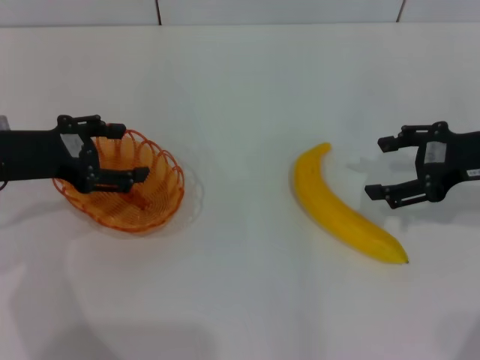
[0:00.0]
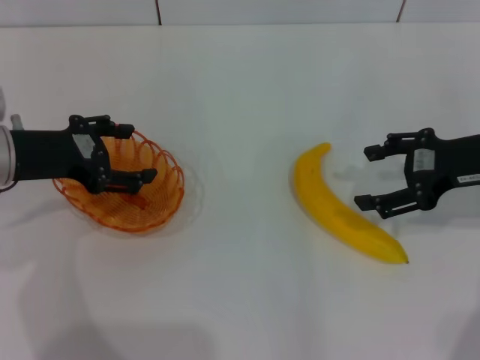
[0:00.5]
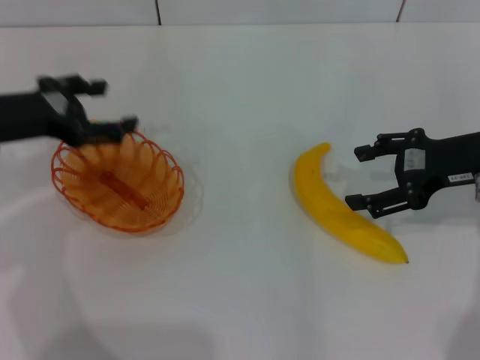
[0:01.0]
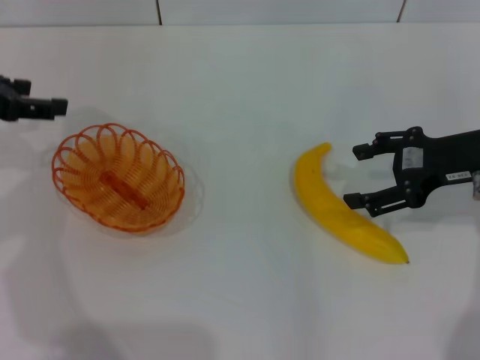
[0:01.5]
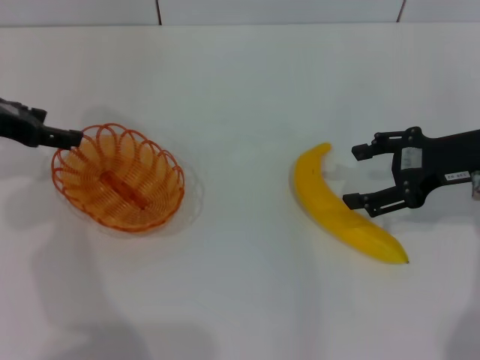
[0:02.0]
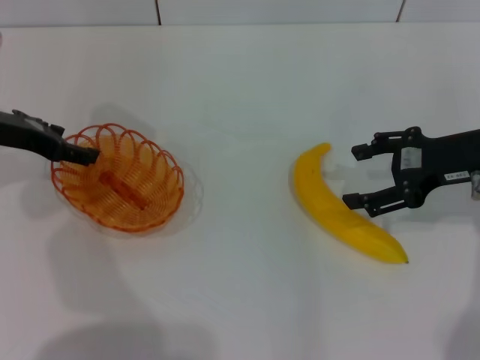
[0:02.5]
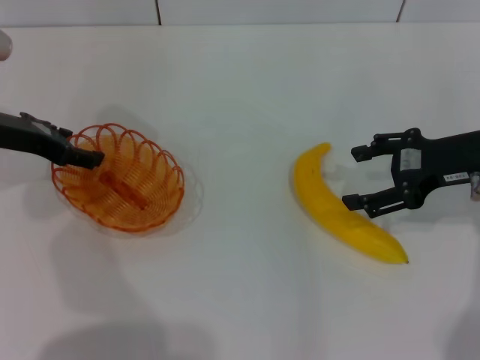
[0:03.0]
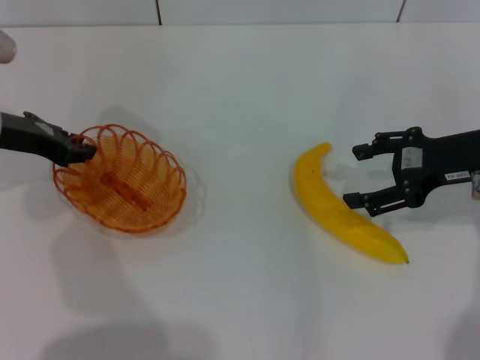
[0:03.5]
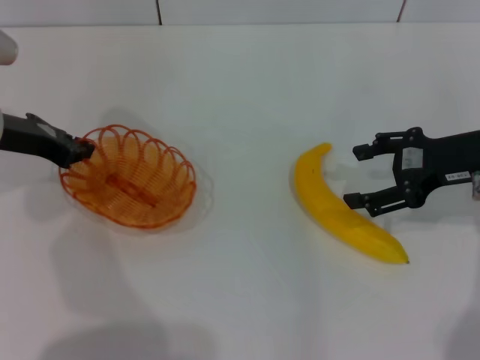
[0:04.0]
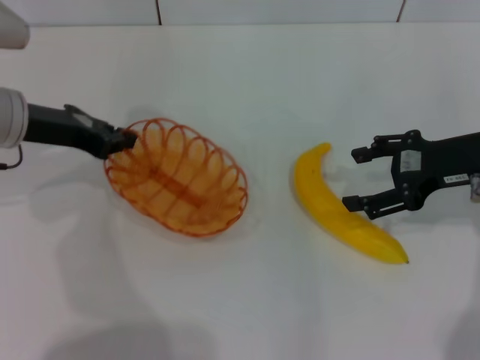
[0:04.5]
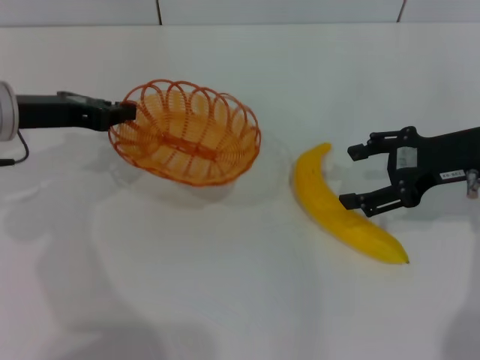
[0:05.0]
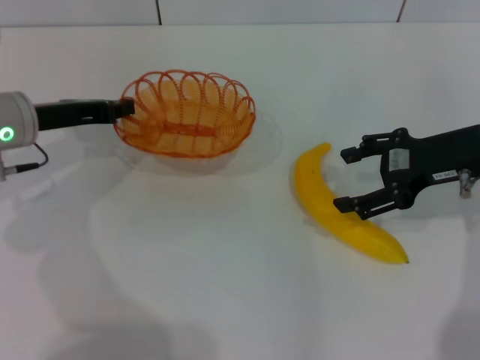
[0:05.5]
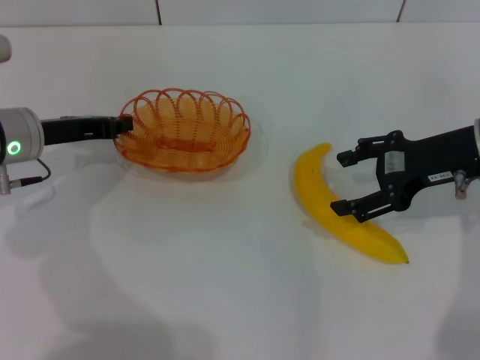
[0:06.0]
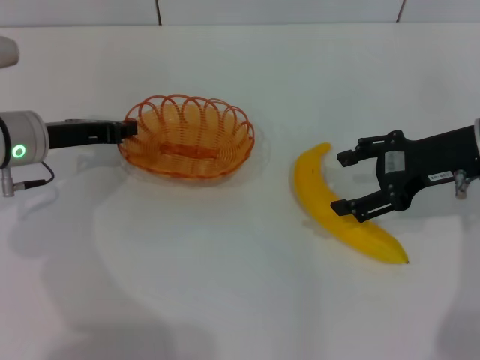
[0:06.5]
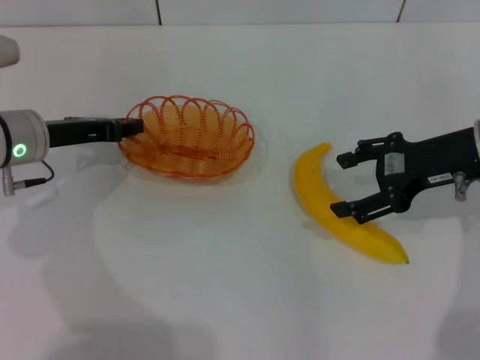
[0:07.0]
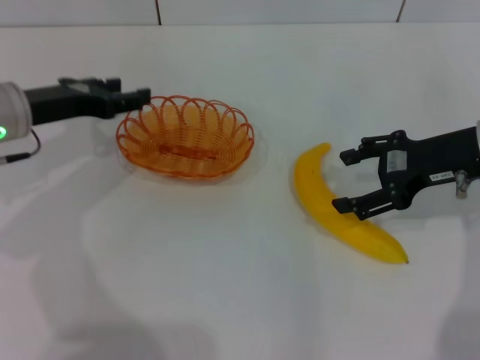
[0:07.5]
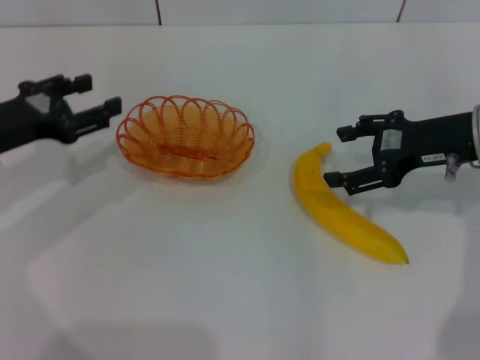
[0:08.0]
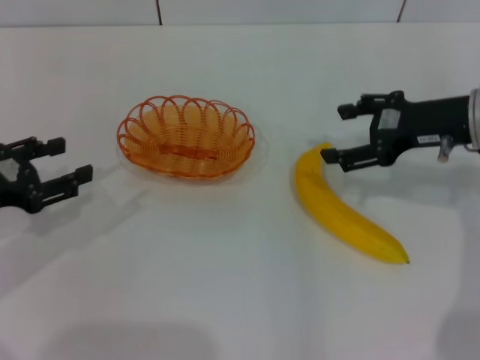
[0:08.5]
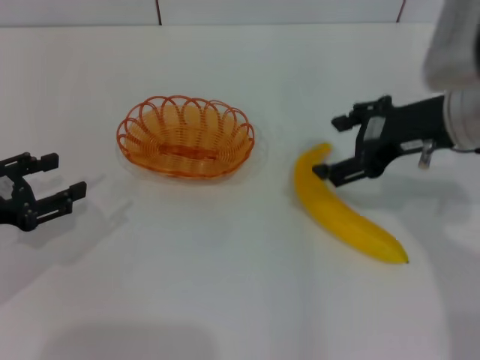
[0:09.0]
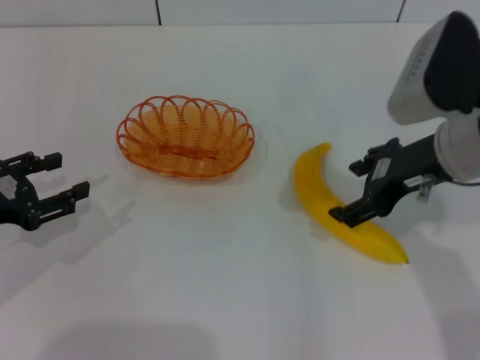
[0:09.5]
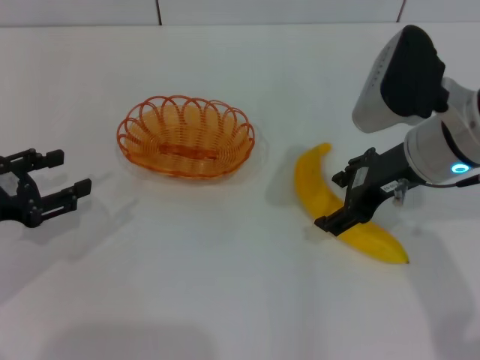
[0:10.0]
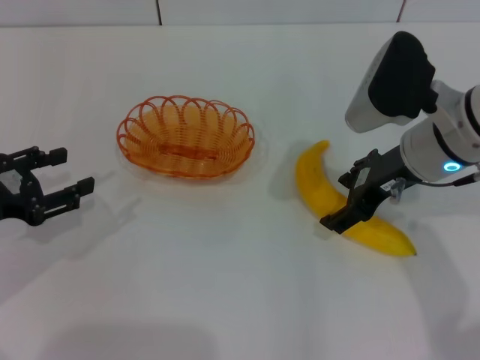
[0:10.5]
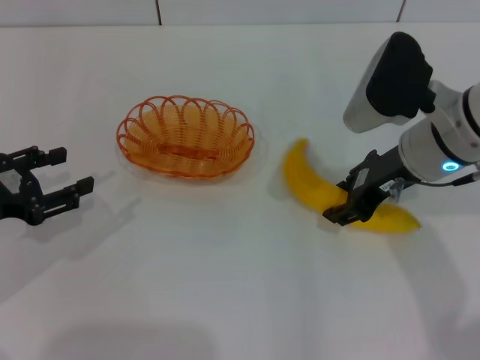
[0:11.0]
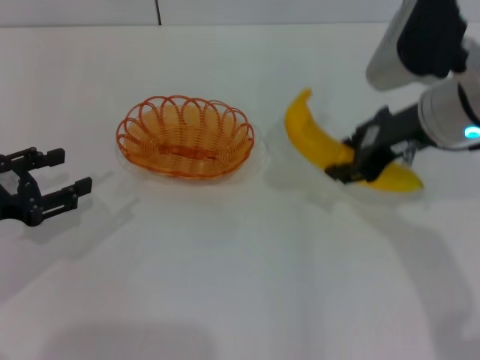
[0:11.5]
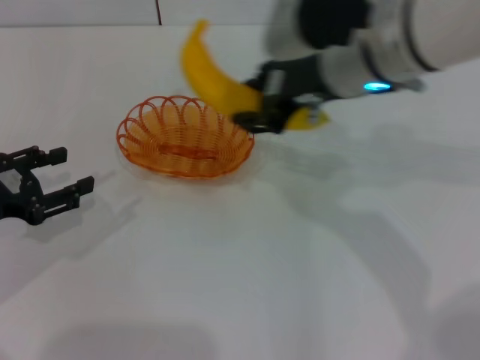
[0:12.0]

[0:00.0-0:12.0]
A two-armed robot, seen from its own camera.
Step, 0:00.0 to 0:04.0: Pick up the basket with the left gripper.
Step, 0:04.5 to 0:07.5: Place the basket in the center of view with the left gripper.
Step, 0:08.0 to 0:11.5: Pick up the banana with the right gripper.
0:00.0 to 0:02.0: The left gripper moves roughly 5 cm.
0:02.0 to 0:04.0: The left gripper closes.
0:06.0 to 0:08.0: The left gripper shifts by roughly 5 cm, and opens its fingers.
0:08.0 to 0:10.0: The right gripper shifts roughly 10 cm to the left, while the left gripper goes roughly 5 cm backward.
0:10.0 to 0:12.0: The right gripper shifts about 10 cm to the left and upward, and closes its fingers.

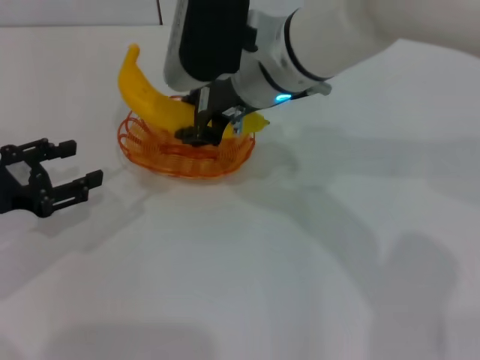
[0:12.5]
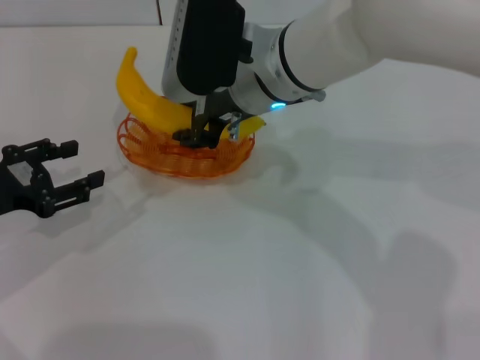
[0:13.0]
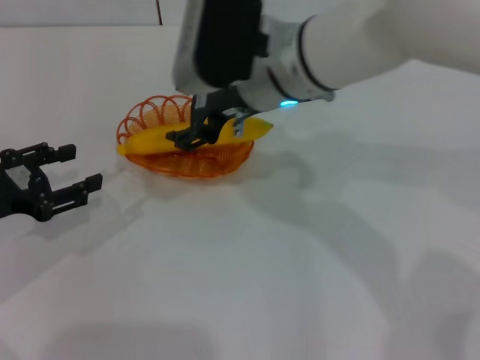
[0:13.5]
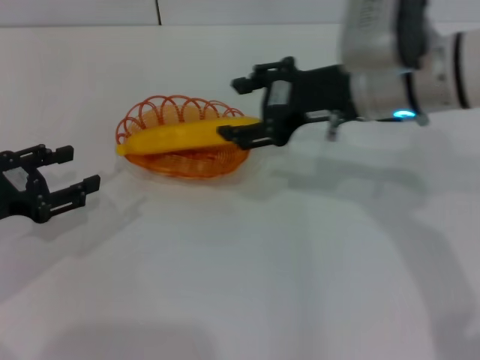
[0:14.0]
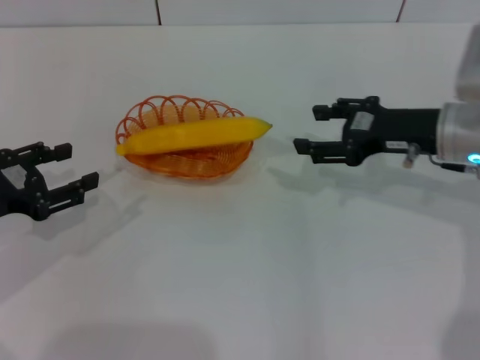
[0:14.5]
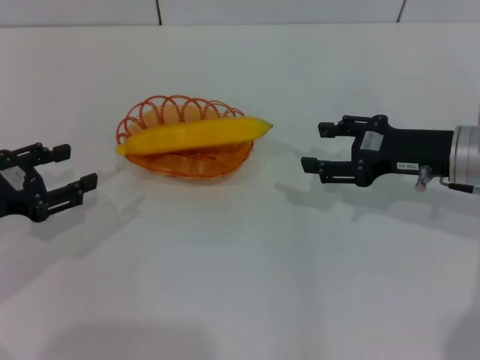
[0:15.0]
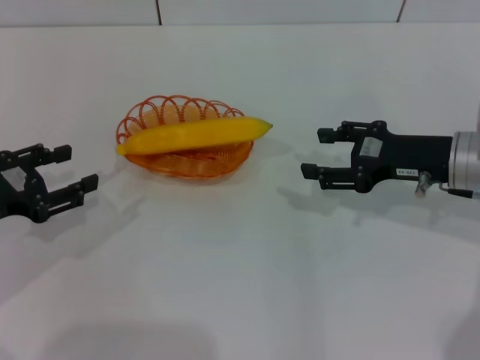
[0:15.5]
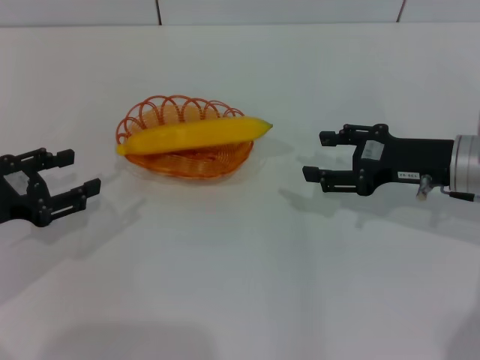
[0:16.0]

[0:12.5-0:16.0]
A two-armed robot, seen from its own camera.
Step, 0:12.5 to 0:13.5: Place the banana into the basket with the right gripper.
0:12.5 to 0:14.5: The right gripper travels to the right by approximately 20 cm, and opens up.
0:14.5 to 0:16.0: The grippers stay close to where they were, moving slightly.

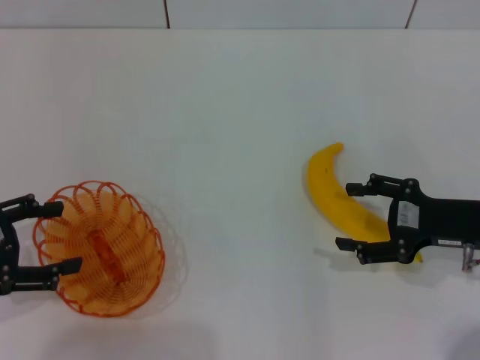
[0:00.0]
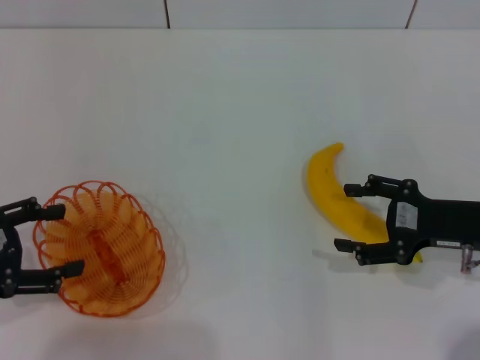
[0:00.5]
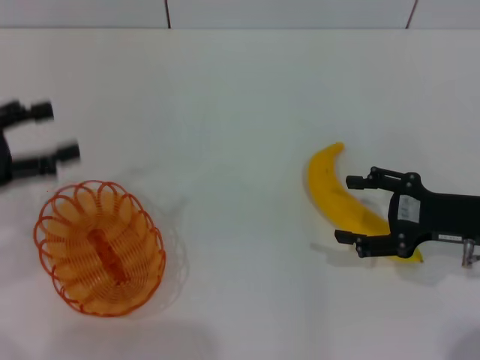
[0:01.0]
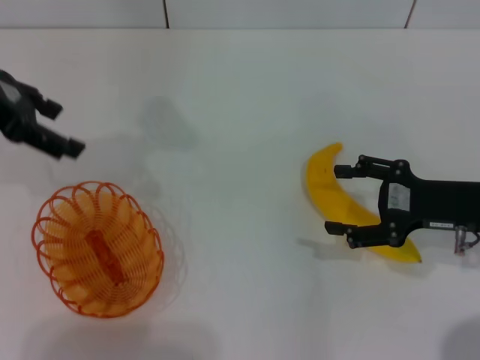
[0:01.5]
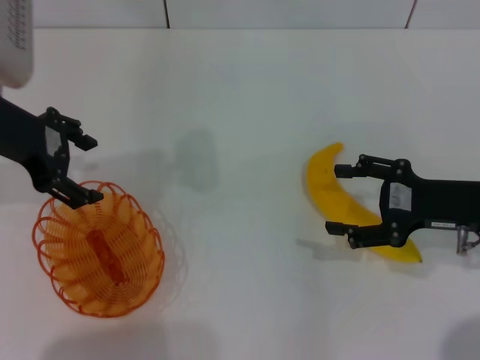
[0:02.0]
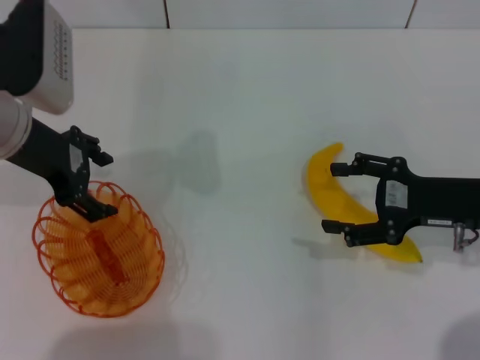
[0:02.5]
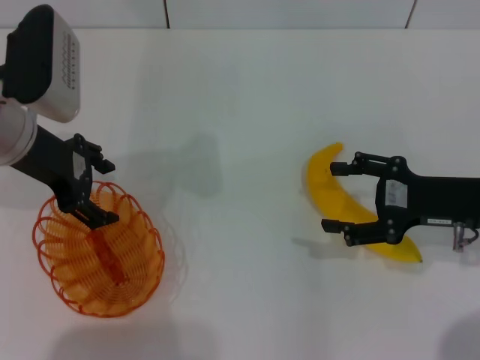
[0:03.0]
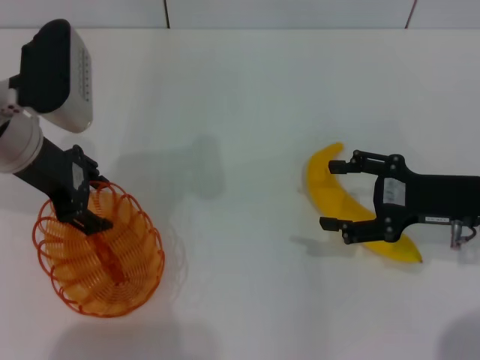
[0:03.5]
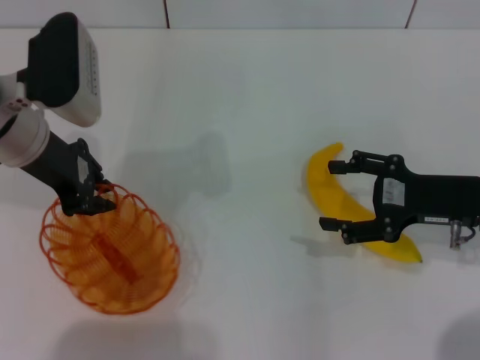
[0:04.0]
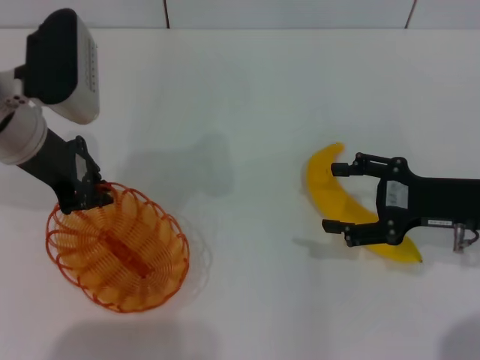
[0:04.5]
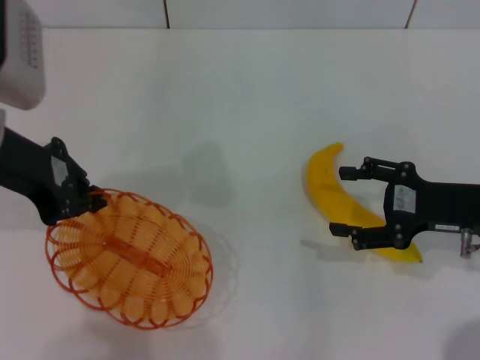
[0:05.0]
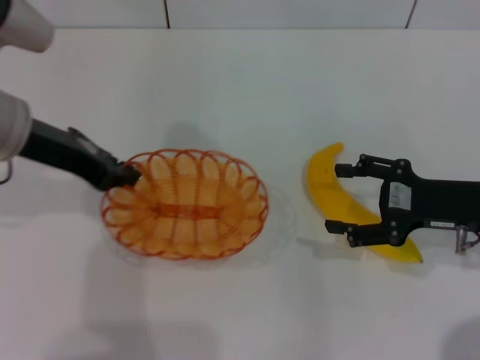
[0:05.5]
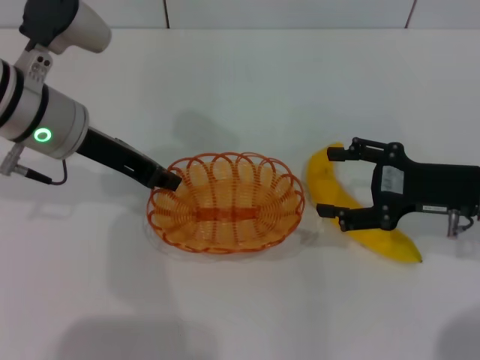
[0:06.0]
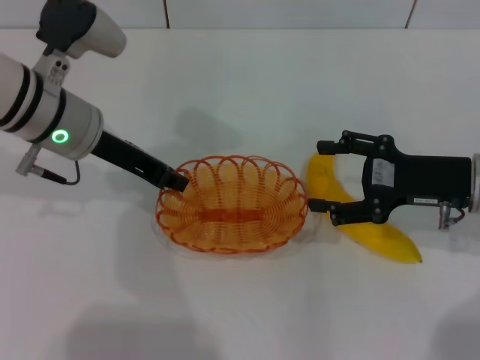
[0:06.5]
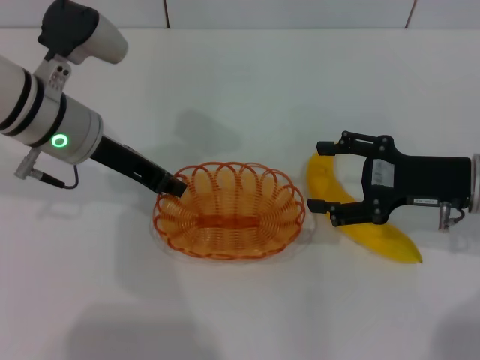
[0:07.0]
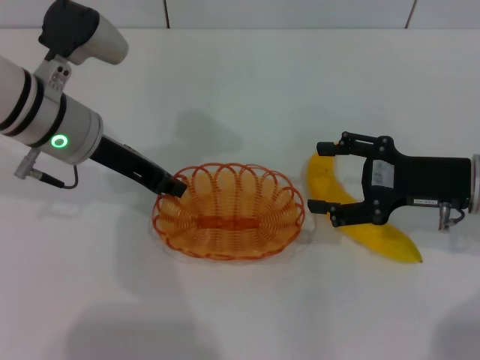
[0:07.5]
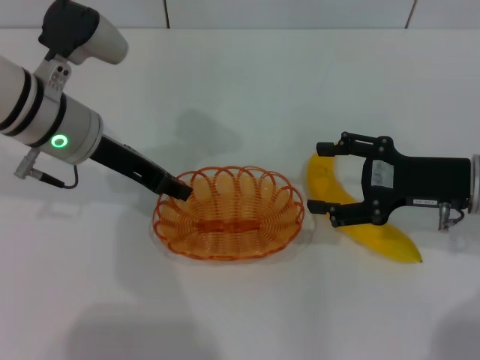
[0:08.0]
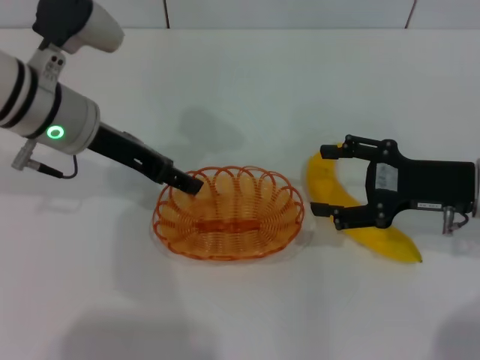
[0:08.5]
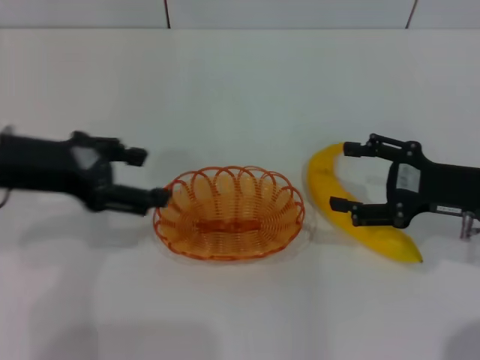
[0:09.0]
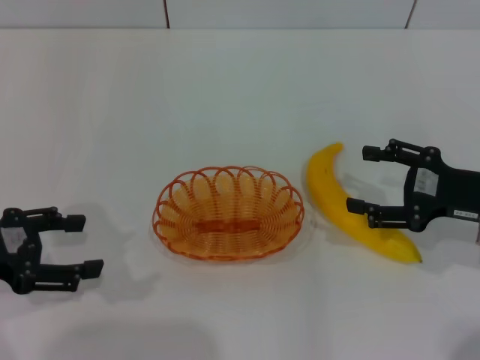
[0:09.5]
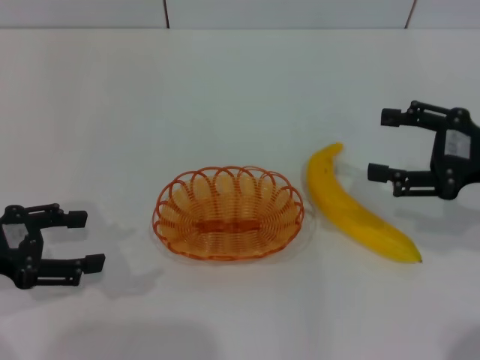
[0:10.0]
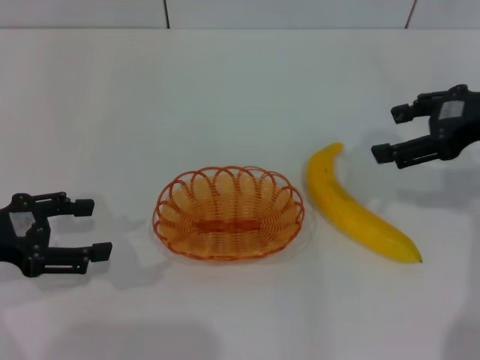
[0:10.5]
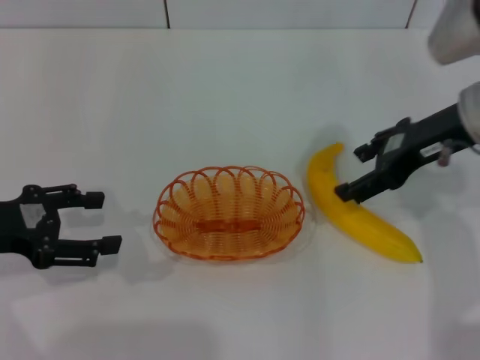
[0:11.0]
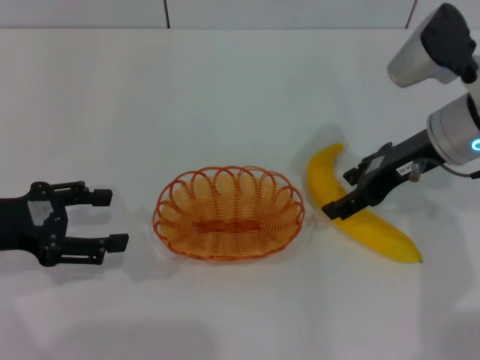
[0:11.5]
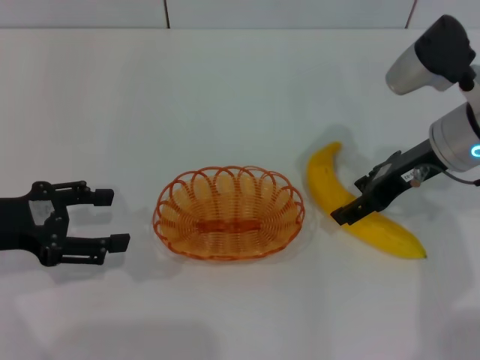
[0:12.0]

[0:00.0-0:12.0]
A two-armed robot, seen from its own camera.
Step, 0:00.0 to 0:04.5: Pick up the basket with the left gripper.
Step, 0:05.0 to 0:08.5: Place the basket in the center of view with the left gripper.
0:00.0 to 0:02.0: The left gripper shifts approximately 20 cm forward, to the right and upward.
0:02.0 to 0:04.0: The left gripper ends up some 5 cm from where it was, and closes.
0:04.0 to 0:06.0: The left gripper closes up.
0:06.0 to 0:08.0: The grippers stay close to where they were, moving slightly.
0:08.0 to 0:10.0: The right gripper ends up approximately 5 cm from where it was. The left gripper heads to the left and backward, covering about 20 cm, and opens its fingers.
0:10.0 to 0:12.0: The right gripper heads to the left and forward, covering about 10 cm.
